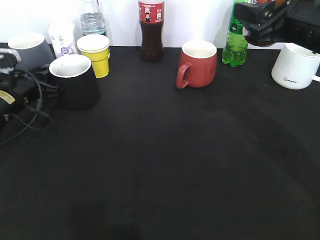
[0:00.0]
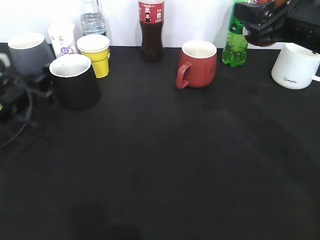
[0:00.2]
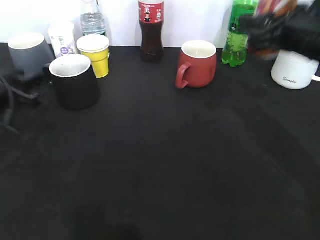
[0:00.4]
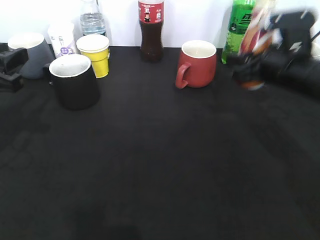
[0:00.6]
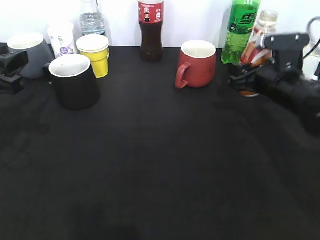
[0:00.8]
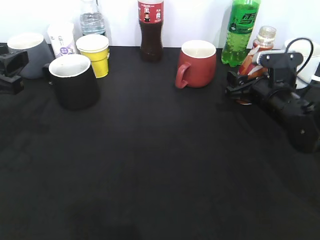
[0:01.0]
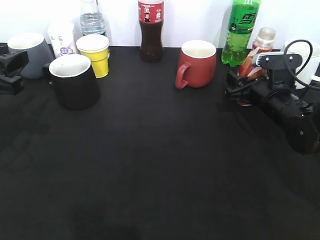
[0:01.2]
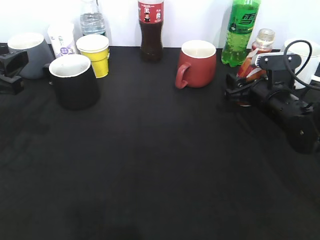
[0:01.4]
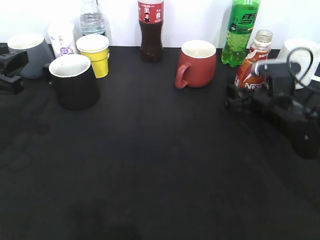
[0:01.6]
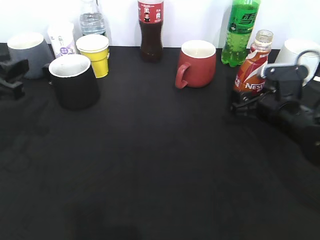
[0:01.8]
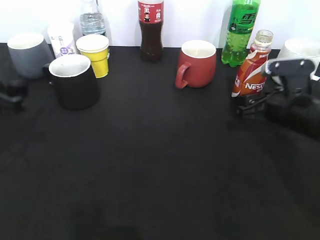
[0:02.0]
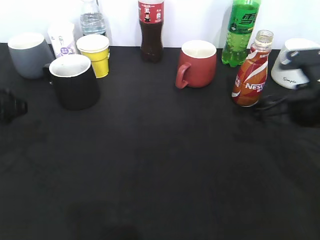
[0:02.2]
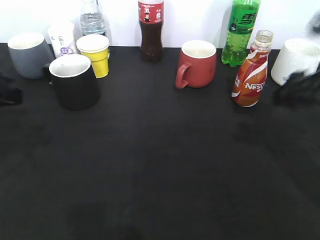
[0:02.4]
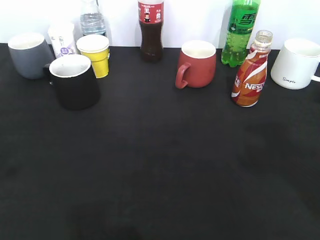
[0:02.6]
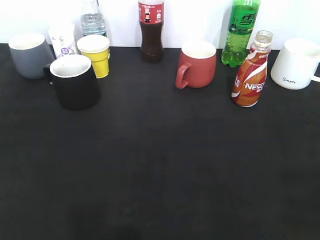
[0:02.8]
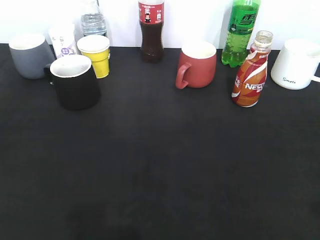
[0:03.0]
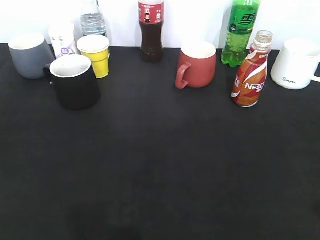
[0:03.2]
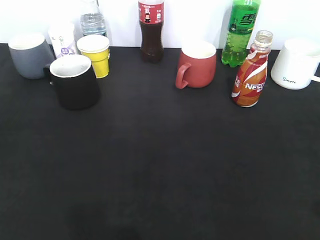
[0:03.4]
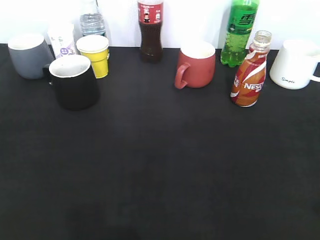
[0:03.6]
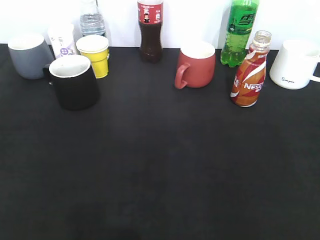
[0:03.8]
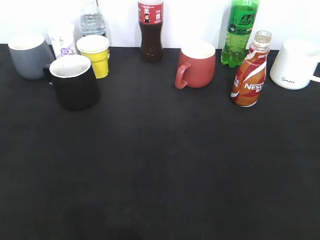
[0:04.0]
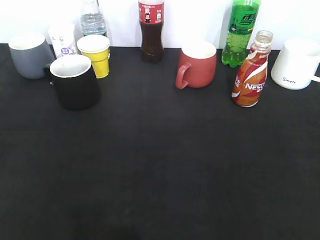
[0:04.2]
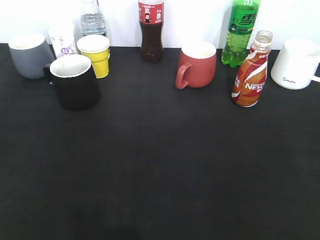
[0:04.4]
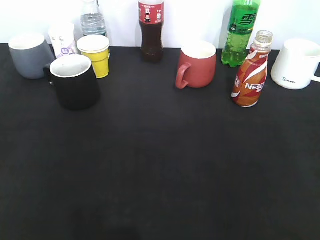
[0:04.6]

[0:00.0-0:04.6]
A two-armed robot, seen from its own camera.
Step, 0:00.4 to 0:02.0: Place the coffee bottle on the table with right gripper.
0:00.0 to 0:01.6: The right gripper goes some 20 cm downward, and opens. The left gripper goes about 15 cm backward and upward.
0:01.6 to 0:03.0: The left gripper heads backward, covering roughly 20 cm. The right gripper travels backward and upward by some 35 cm.

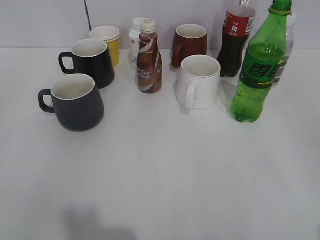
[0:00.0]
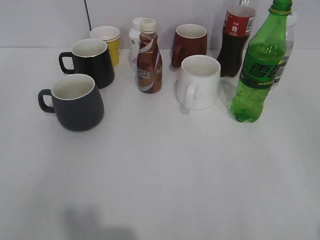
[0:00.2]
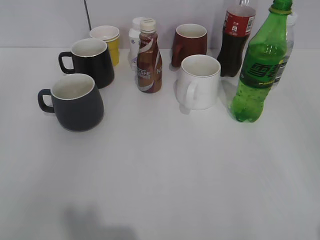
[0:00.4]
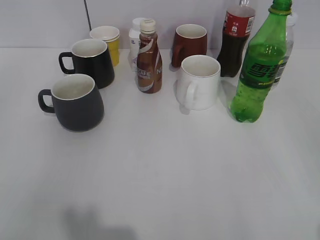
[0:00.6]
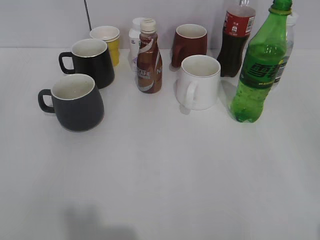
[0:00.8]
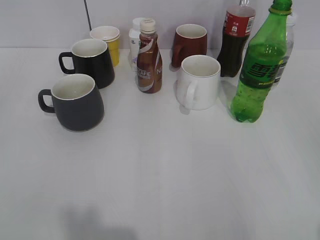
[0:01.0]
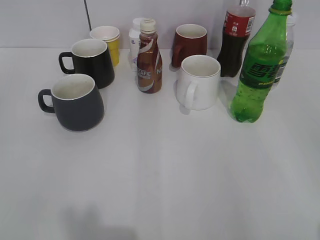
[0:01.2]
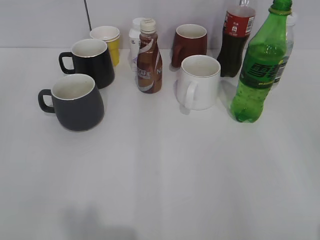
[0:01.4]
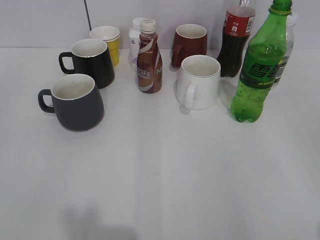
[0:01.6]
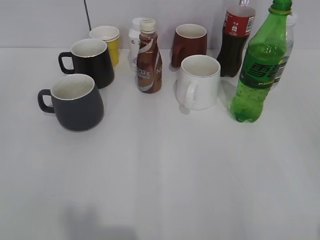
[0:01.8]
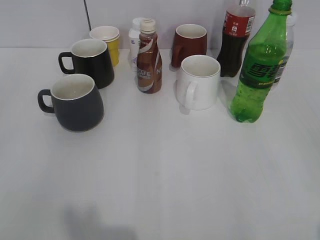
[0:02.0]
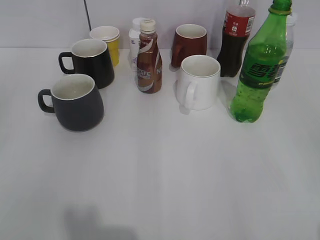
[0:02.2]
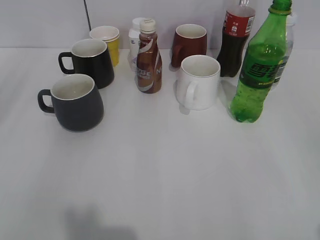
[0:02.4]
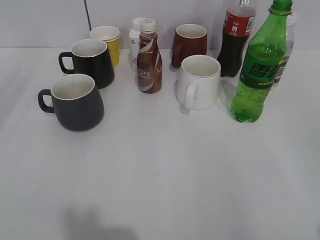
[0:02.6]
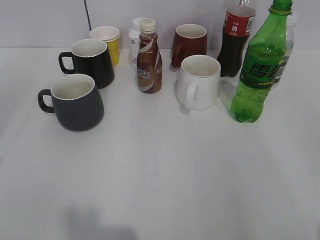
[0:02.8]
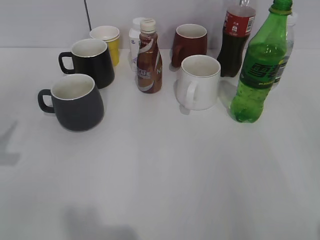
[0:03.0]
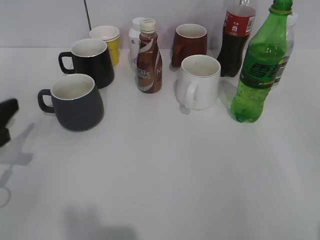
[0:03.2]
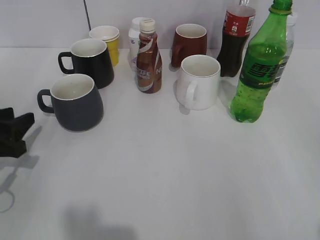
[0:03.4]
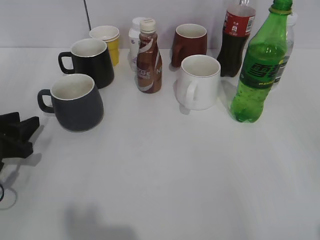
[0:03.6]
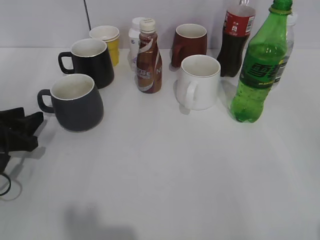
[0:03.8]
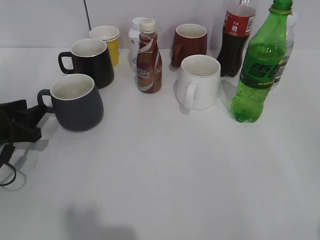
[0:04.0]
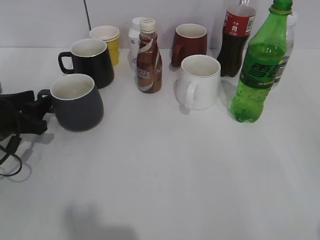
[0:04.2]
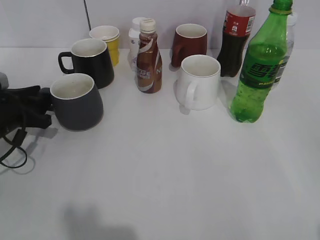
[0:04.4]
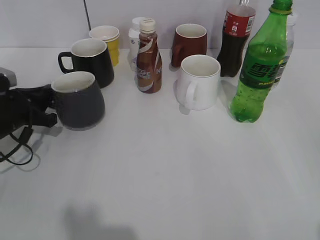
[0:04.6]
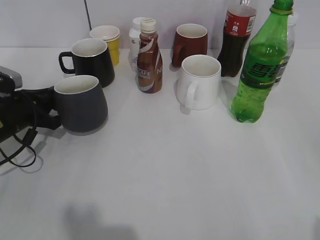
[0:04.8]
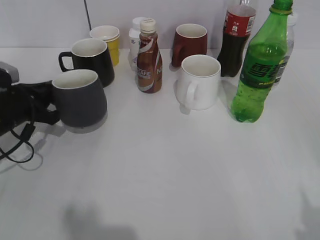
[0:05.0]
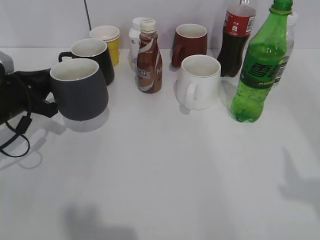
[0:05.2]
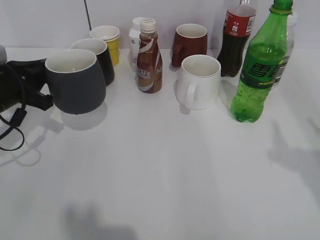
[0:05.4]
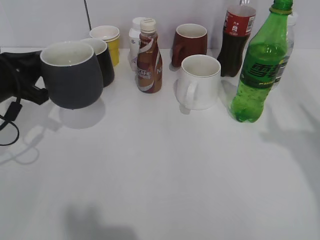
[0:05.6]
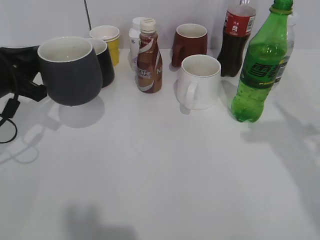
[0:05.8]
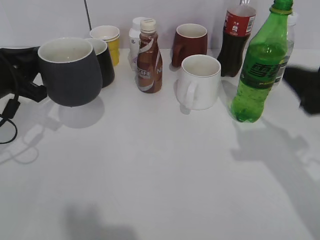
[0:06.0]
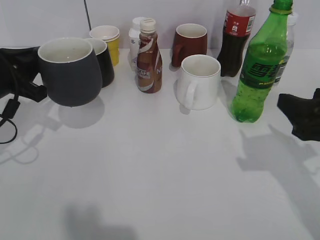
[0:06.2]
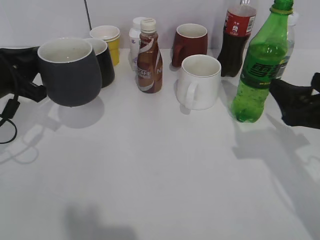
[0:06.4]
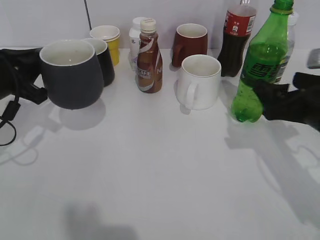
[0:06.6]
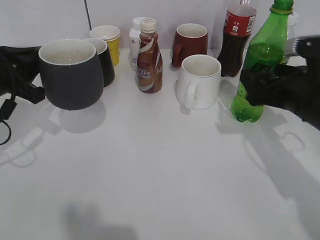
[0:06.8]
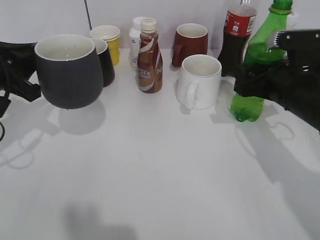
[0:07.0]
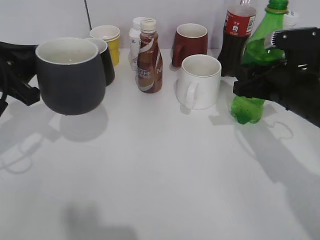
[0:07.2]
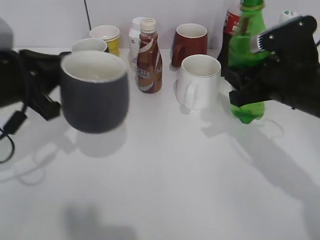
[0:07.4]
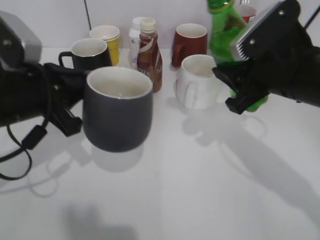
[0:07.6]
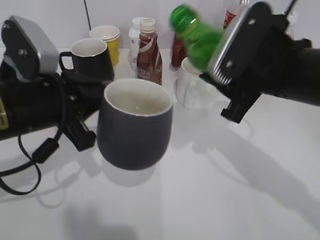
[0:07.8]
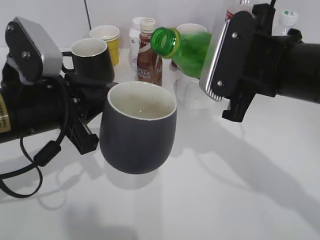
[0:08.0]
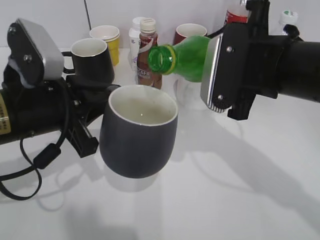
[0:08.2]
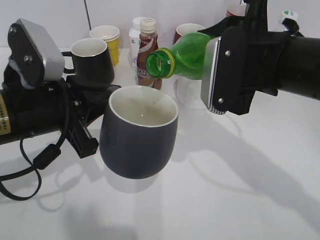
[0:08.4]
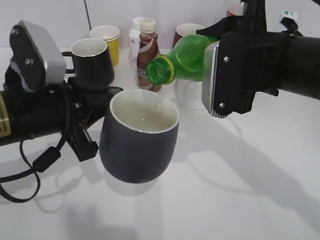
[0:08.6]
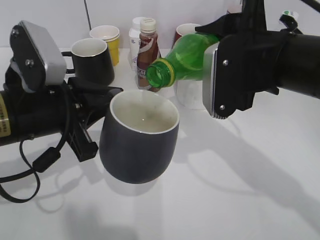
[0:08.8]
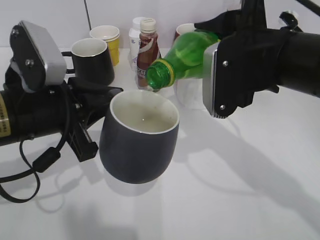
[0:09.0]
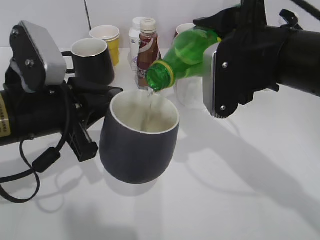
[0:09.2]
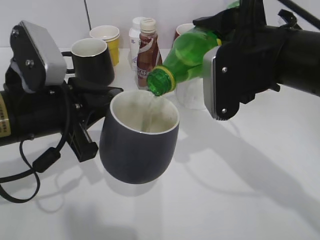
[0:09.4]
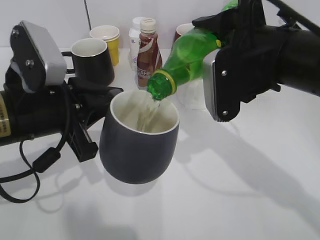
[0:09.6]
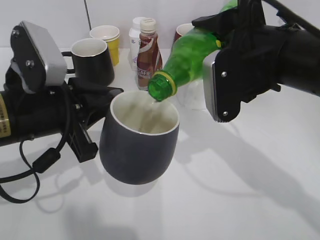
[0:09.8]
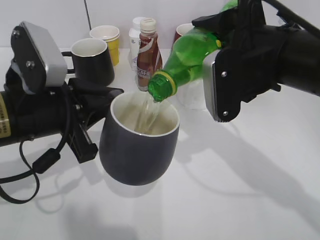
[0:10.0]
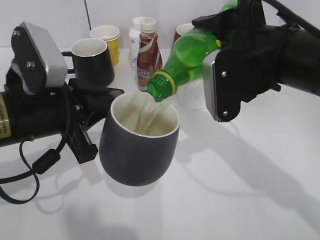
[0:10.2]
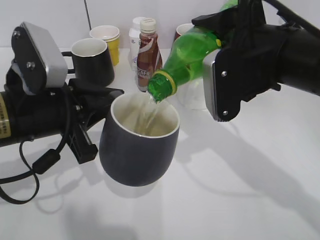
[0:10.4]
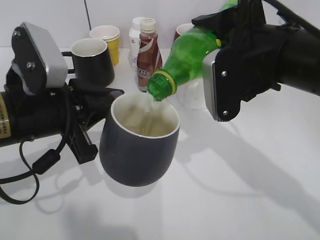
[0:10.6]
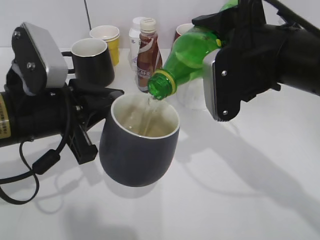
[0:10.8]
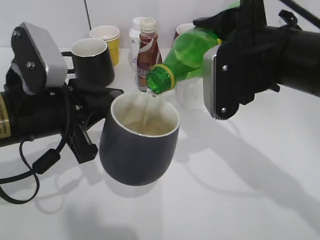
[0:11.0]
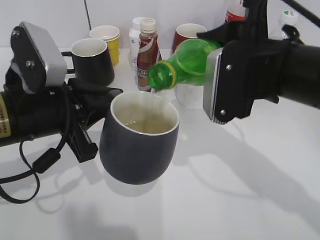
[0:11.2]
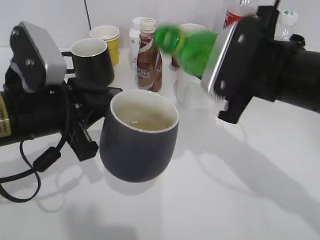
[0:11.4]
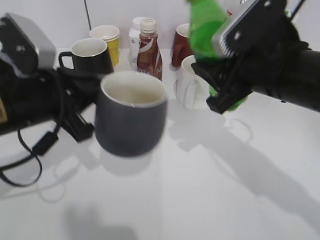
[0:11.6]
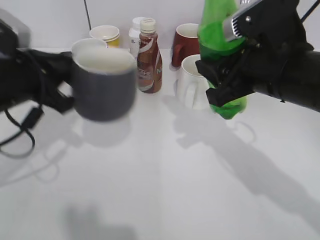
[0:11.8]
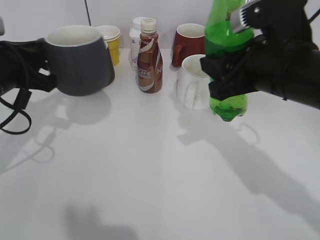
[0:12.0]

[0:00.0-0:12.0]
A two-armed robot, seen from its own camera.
Step, 0:01.8 to 0:04.6: Grasp the grey cup with left gripper.
Step, 0:04.8 to 0:05.6: Lift the grey cup with left gripper.
Step, 0:05.8 to 0:07.0: Grasp the bottle with sprite with right gripper.
Step, 0:07.2 to 0:11.2: Pour the sprite from bottle to cup with right gripper.
0:03.0 to 0:04.4: The left gripper goes about 15 cm forward and downward.
0:04.4 to 0:06.0: The left gripper is displaced upward by about 10 cm, and closes, while the right gripper moves forward, about 20 cm, and closes its fingers.
0:06.0 to 0:07.6: The right gripper goes about 10 cm to the left and forward, and closes its fingers. The left gripper shifts roughly 10 cm to the right and backward.
0:07.6 to 0:09.0: The right gripper ends up about 5 cm from where it was.
0:09.0 to 0:10.4: The grippers stay close to where they were, moving slightly.
0:10.4 to 0:12.0: The left gripper is displaced to the left and forward by roughly 10 cm.

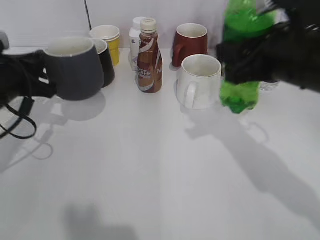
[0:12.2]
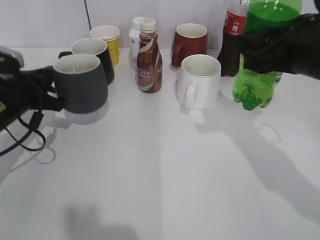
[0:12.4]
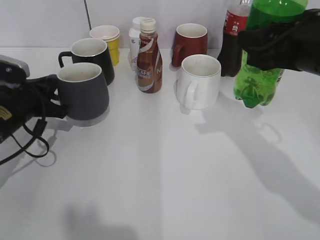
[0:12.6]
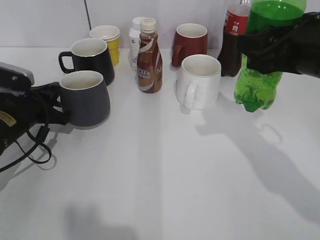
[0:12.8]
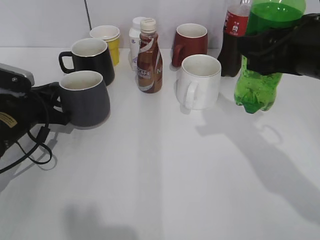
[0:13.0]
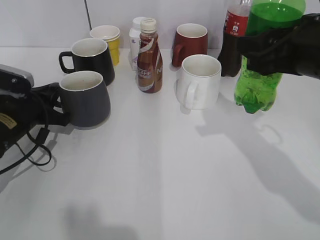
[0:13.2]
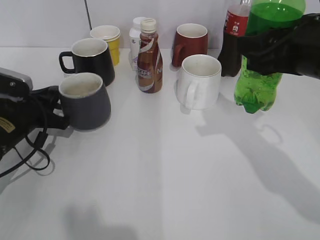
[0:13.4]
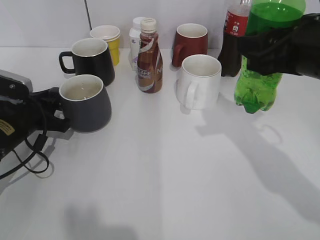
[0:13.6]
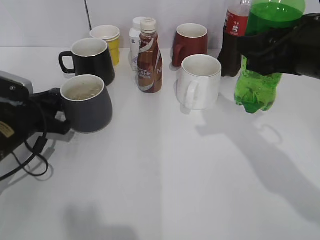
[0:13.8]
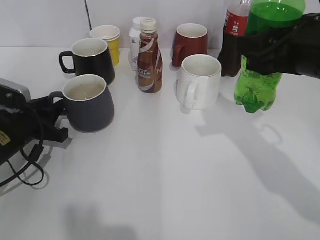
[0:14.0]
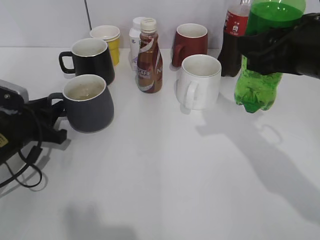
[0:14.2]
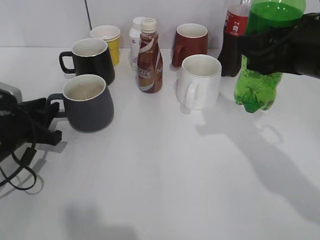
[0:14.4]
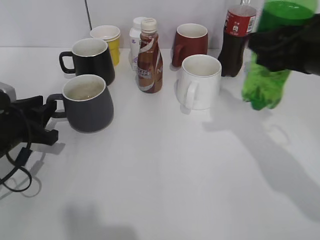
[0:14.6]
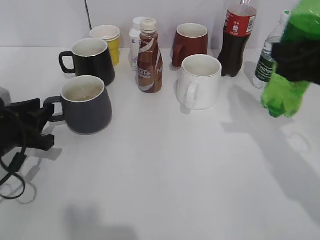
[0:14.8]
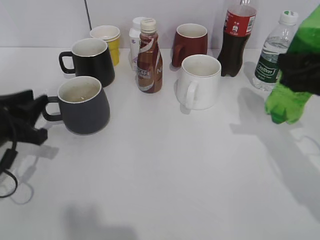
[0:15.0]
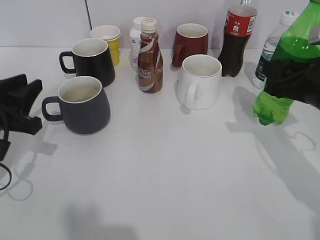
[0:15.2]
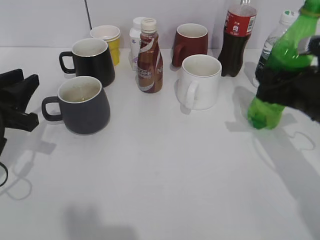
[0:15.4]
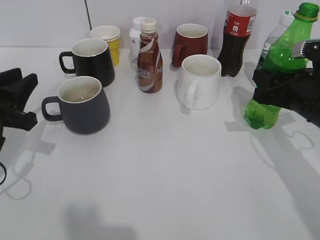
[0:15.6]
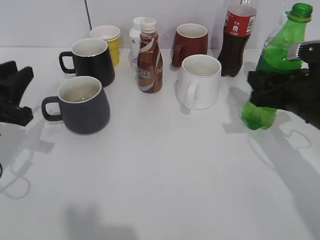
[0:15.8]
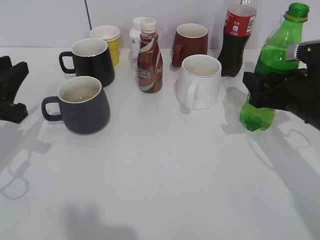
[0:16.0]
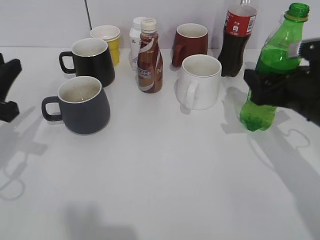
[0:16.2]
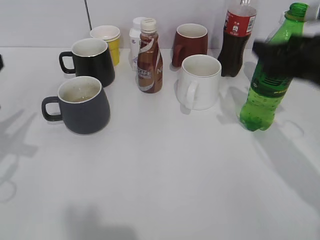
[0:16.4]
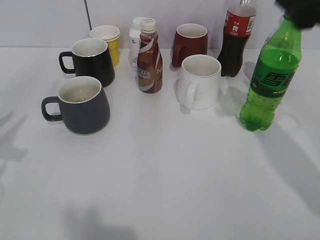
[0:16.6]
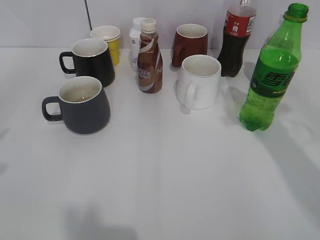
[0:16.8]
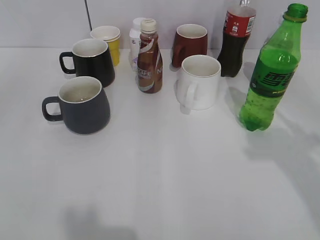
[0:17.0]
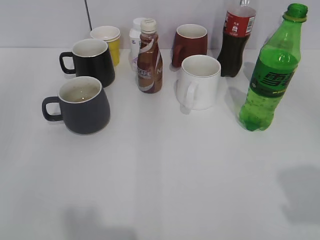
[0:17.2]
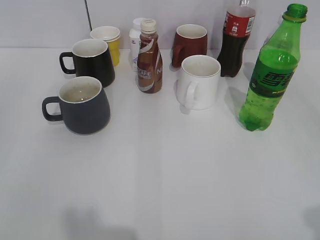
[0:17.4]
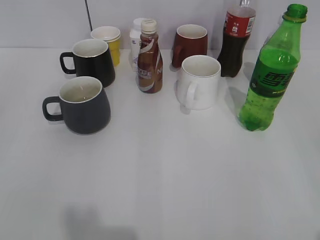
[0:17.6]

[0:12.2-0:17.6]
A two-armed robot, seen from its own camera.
Step, 0:12.2 to 0:14.2: Place the grey cup on the table with left gripper.
Step, 0:14.4 to 0:16.2: Place the sprite bottle on the table with right gripper.
0:12.2 to 0:13.6: The left gripper shifts roughly 10 cm downward.
0:13.6 to 0:15.0: The right gripper goes about 5 cm to the right; the left gripper goes approximately 5 cm backward, and opens.
0:15.0 to 0:16.2: The left gripper travels upward by roughly 5 cm. The right gripper heads downward, covering about 5 cm, and opens up.
0:16.2 to 0:17.6: Both grippers move backward, about 25 cm.
